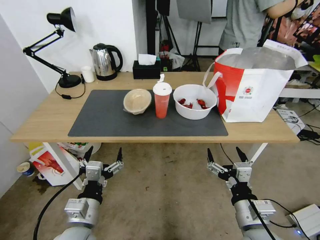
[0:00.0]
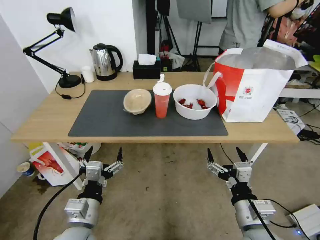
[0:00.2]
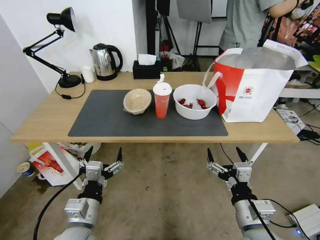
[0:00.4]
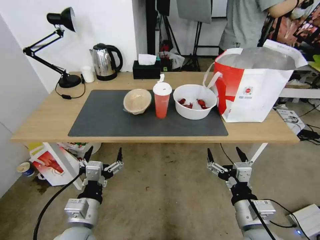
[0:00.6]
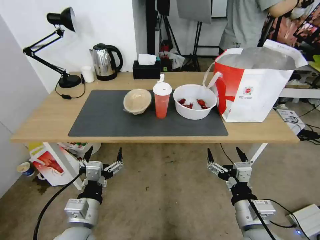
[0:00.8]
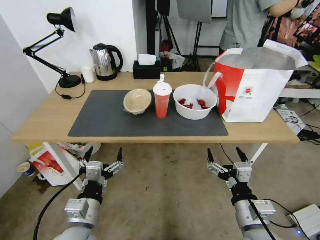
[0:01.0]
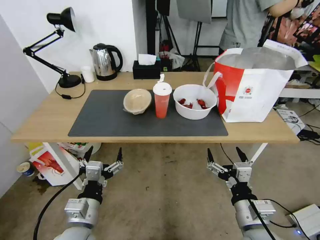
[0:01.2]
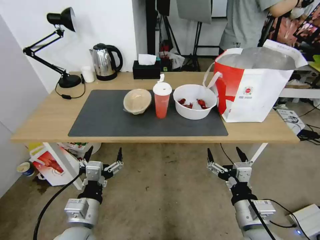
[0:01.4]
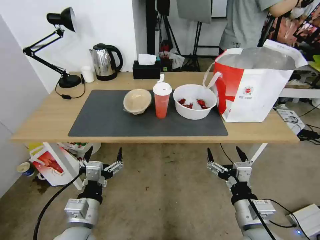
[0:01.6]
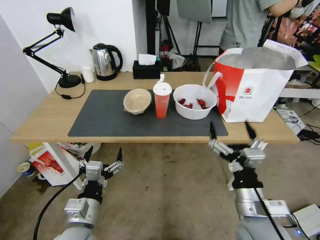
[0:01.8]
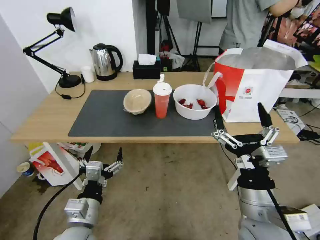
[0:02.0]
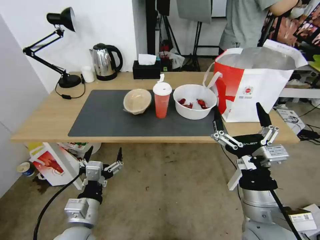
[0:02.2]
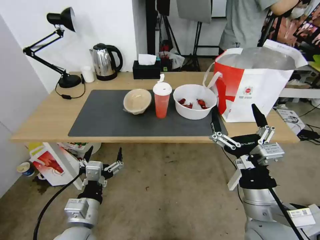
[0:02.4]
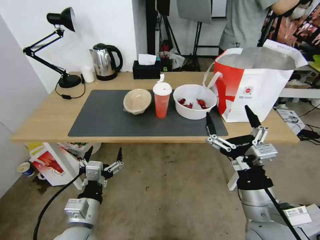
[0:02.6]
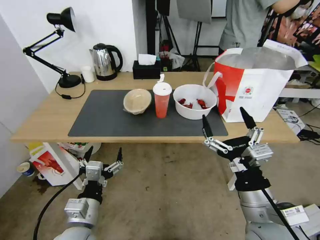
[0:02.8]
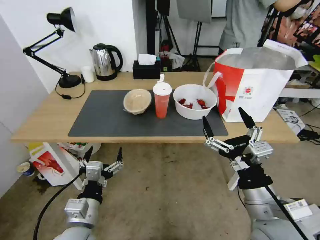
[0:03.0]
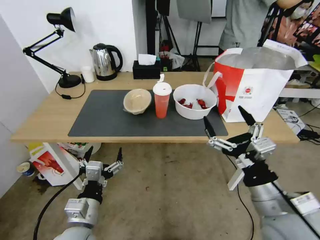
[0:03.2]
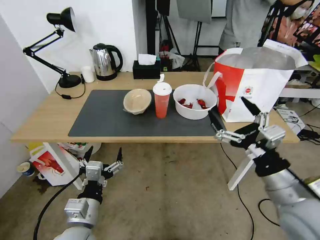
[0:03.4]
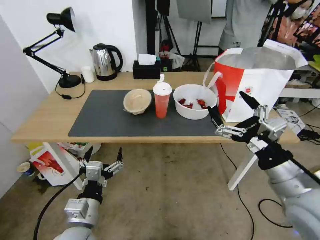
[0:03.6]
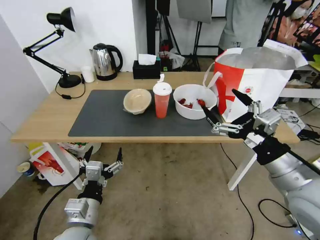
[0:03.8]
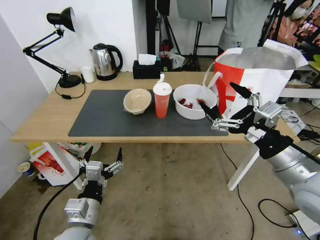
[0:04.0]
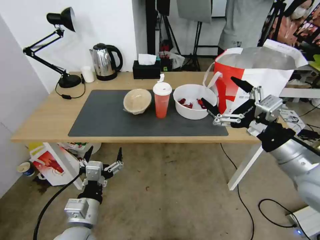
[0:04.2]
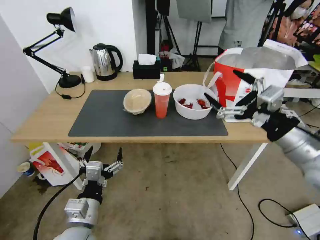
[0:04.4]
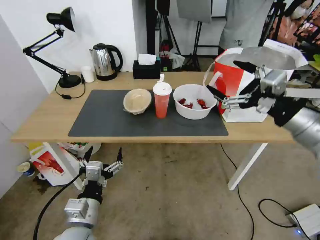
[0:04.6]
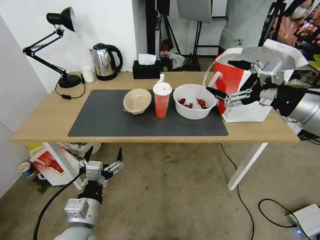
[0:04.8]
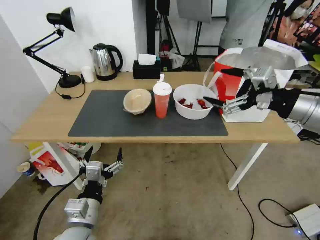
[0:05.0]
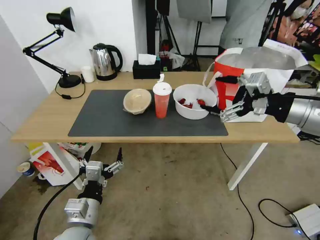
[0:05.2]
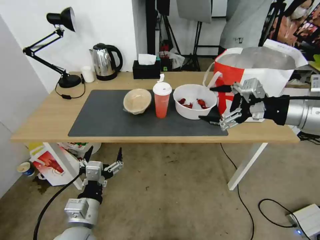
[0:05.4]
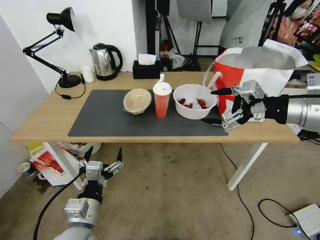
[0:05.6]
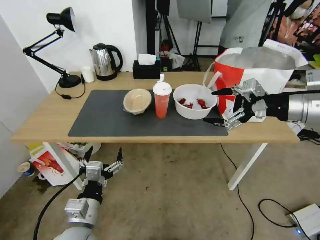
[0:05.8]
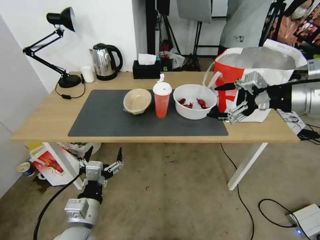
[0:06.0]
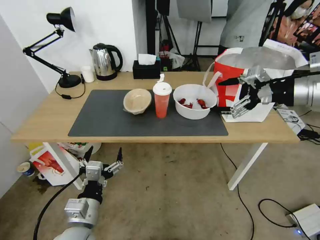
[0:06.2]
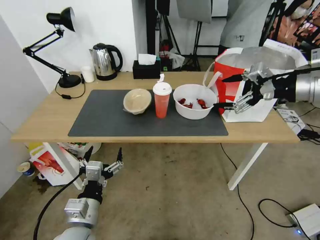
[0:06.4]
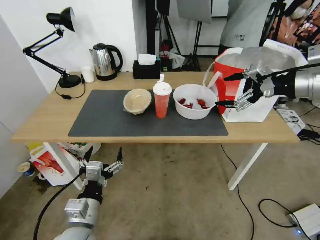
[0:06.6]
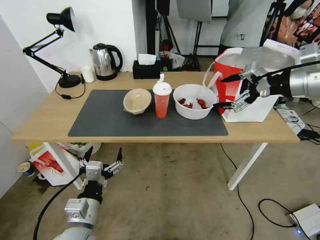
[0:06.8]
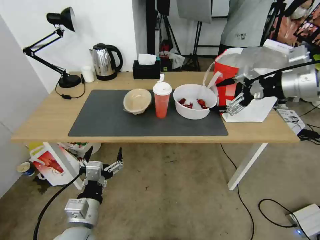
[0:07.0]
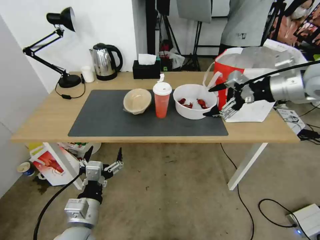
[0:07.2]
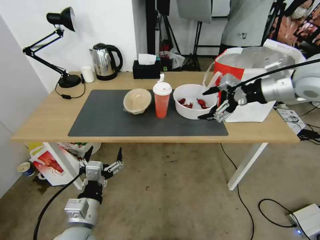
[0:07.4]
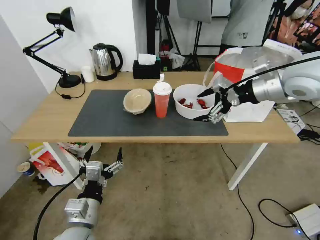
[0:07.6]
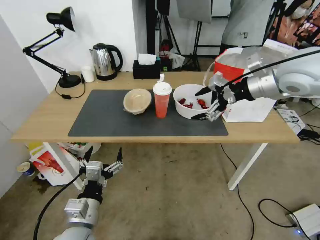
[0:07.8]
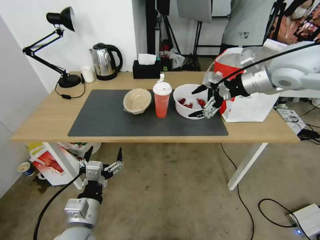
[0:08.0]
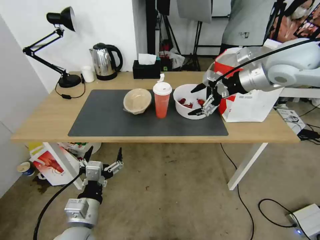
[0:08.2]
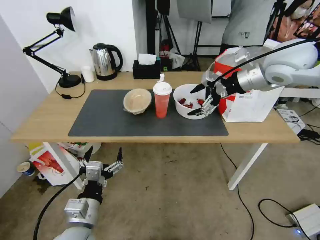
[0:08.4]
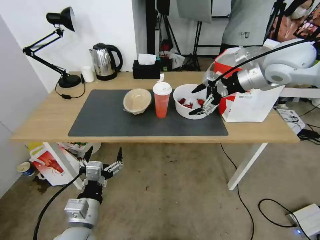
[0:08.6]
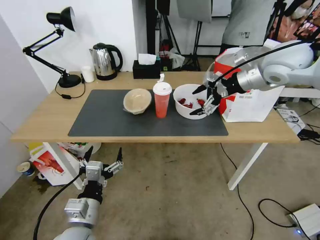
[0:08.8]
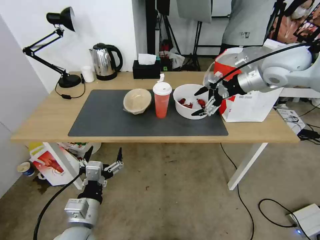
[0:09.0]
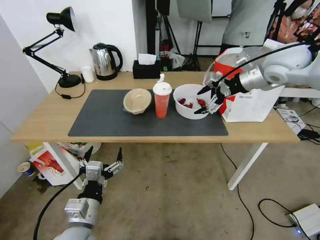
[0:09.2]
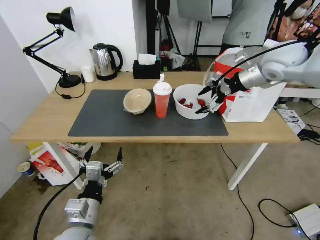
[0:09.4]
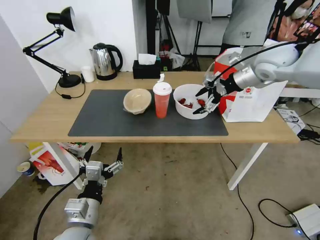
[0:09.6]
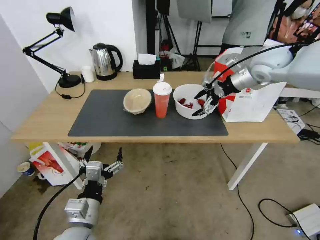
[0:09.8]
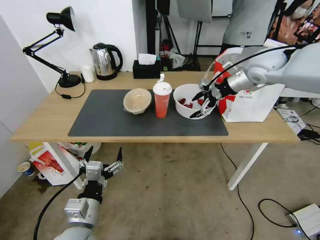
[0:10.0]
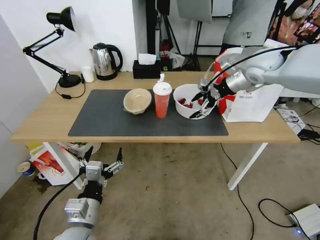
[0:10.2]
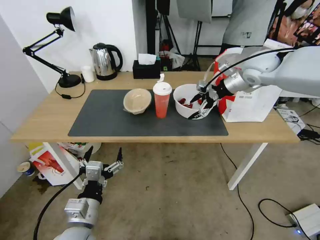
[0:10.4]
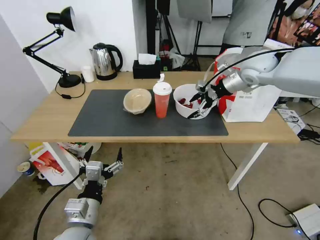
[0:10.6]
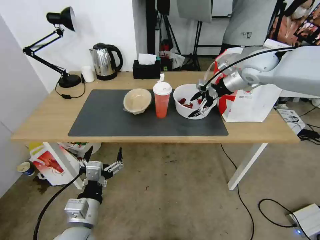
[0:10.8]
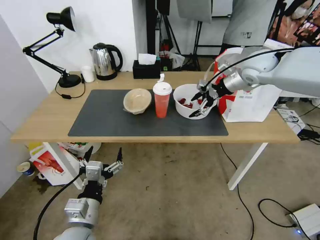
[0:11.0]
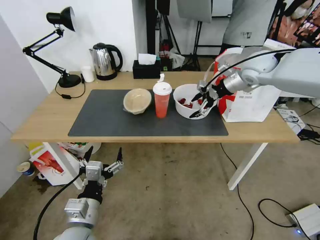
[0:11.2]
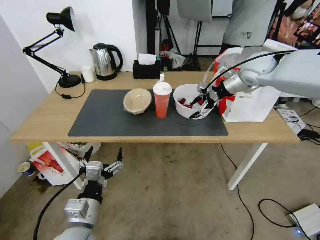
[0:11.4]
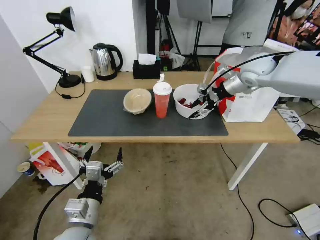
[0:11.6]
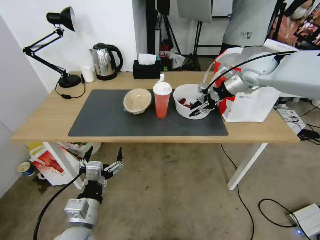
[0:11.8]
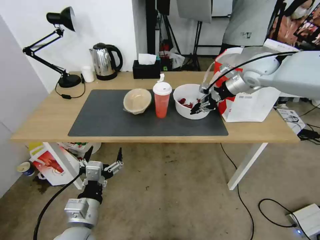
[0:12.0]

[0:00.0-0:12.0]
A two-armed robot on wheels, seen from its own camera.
Task of the whole recording: Pick up the trash from the table and place it into the takeout bag.
0:01.6 to 0:03.0: The right gripper is displaced upward by approximately 10 cm.
0:03.0 to 0:04.4: The right gripper shifts roughly 15 cm upward, to the right and forward.
0:04.4 to 0:06.0: The right gripper heads forward, upward and to the right, covering some 15 cm.
0:06.0 to 0:07.6: The right gripper goes some 5 cm forward.
0:07.6 to 0:09.0: The right gripper moves forward, approximately 5 cm.
0:09.0 to 0:10.4: The right gripper travels forward by some 5 cm.
0:10.4 to 0:12.0: The right gripper closes its fingers.

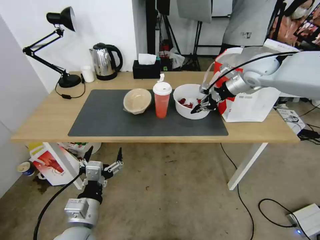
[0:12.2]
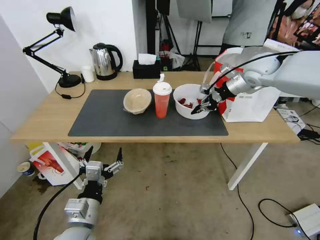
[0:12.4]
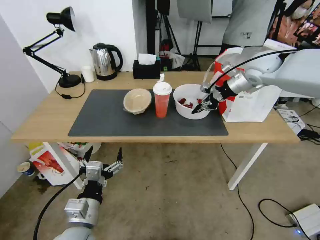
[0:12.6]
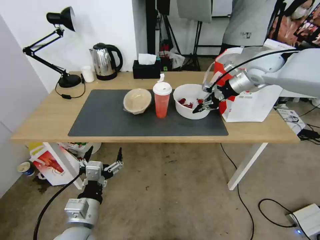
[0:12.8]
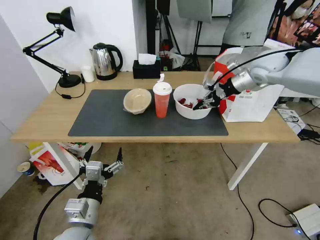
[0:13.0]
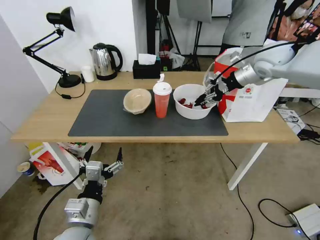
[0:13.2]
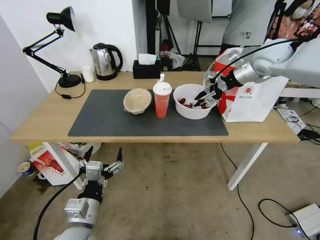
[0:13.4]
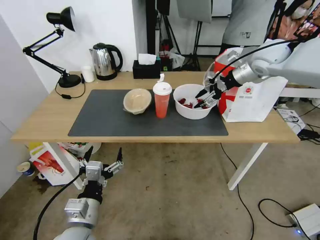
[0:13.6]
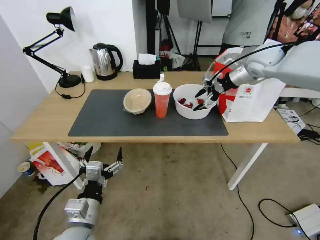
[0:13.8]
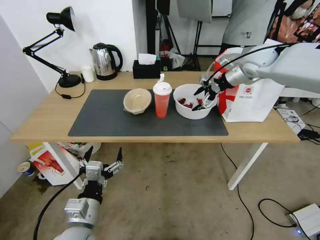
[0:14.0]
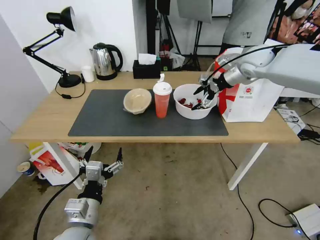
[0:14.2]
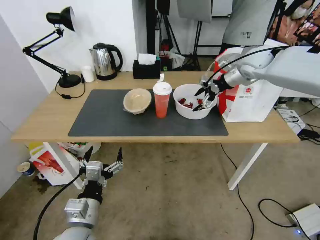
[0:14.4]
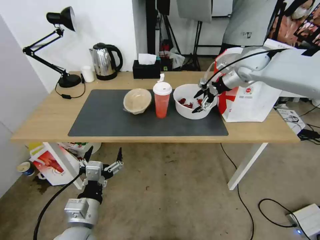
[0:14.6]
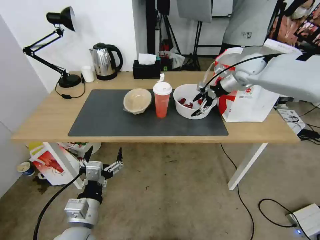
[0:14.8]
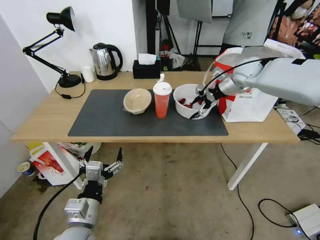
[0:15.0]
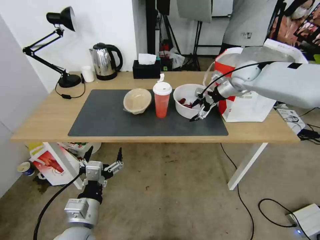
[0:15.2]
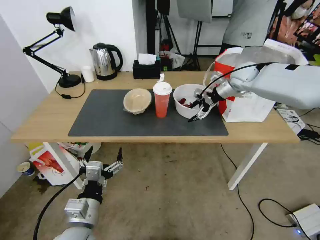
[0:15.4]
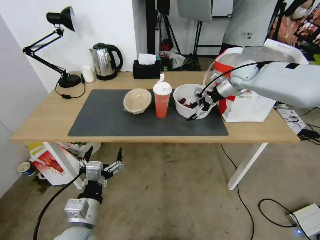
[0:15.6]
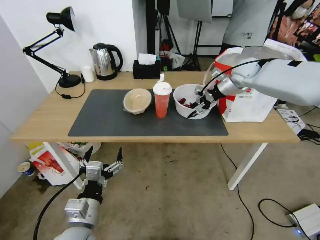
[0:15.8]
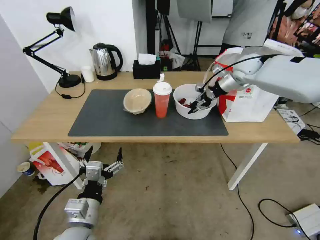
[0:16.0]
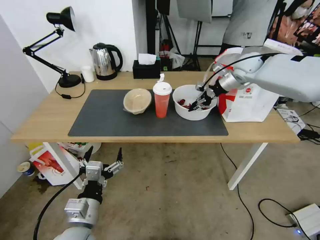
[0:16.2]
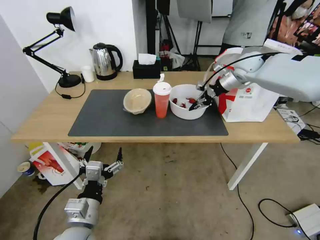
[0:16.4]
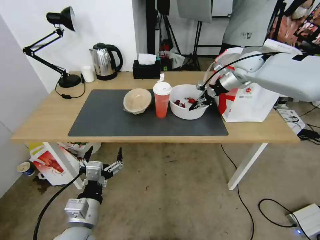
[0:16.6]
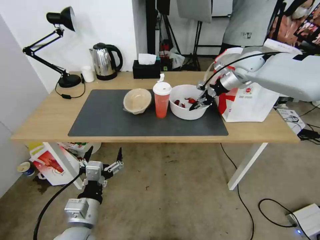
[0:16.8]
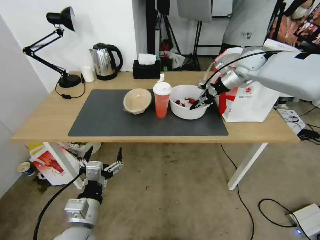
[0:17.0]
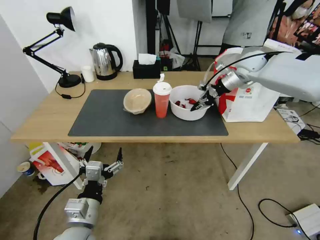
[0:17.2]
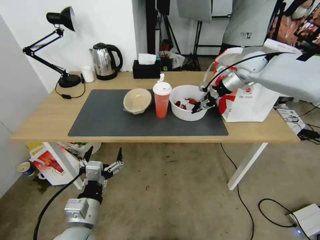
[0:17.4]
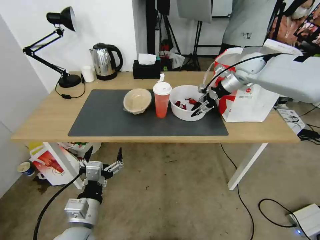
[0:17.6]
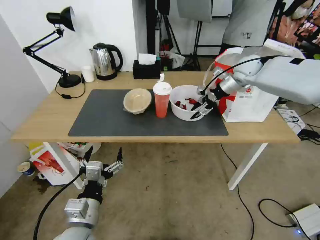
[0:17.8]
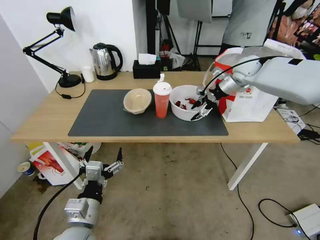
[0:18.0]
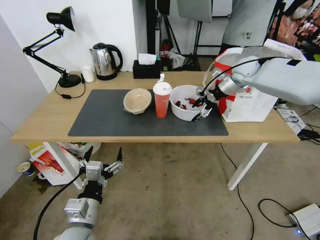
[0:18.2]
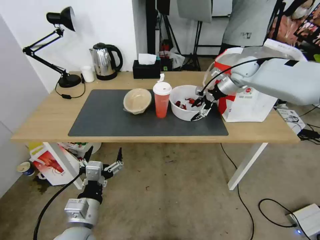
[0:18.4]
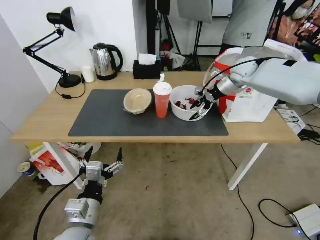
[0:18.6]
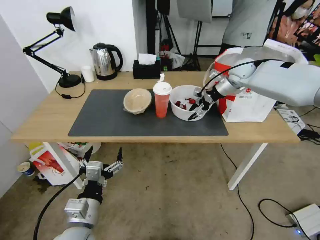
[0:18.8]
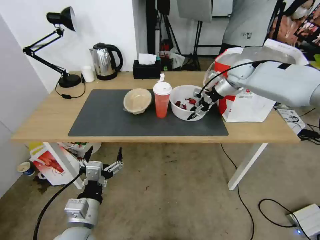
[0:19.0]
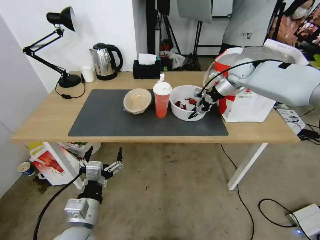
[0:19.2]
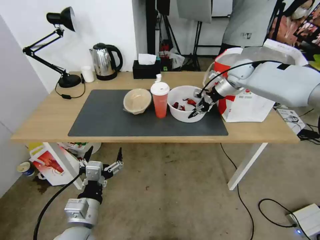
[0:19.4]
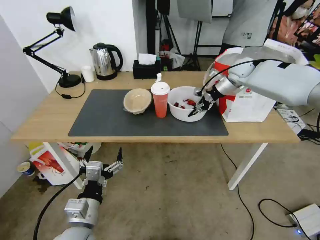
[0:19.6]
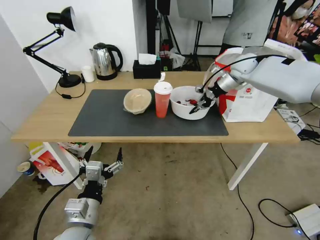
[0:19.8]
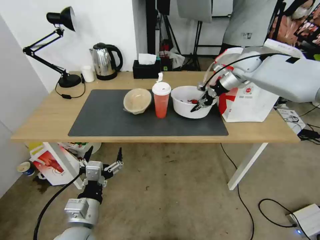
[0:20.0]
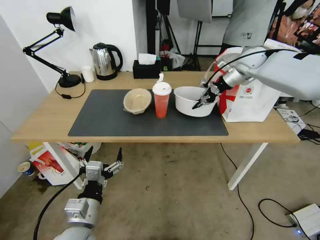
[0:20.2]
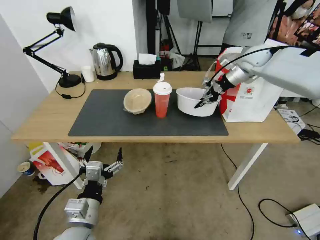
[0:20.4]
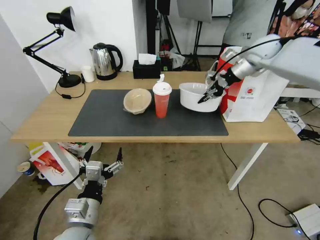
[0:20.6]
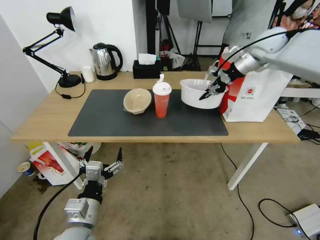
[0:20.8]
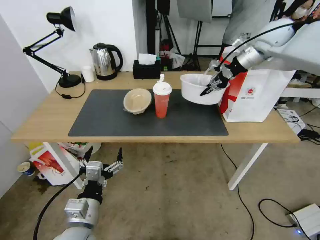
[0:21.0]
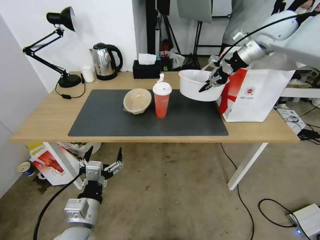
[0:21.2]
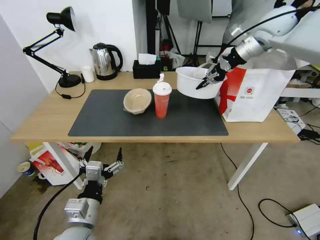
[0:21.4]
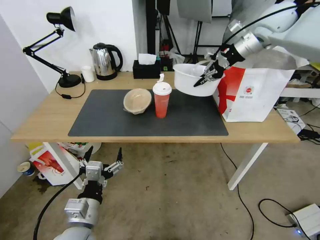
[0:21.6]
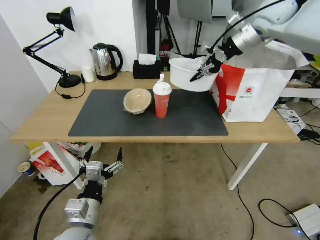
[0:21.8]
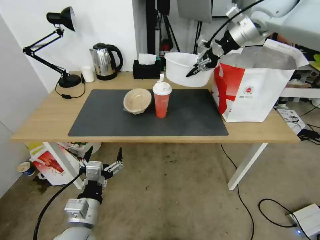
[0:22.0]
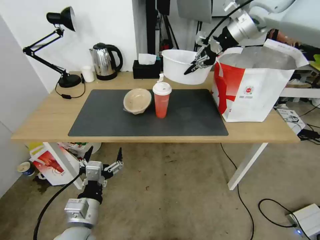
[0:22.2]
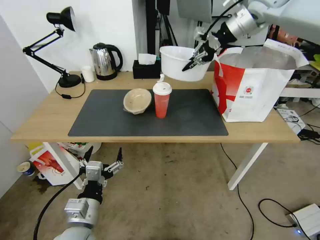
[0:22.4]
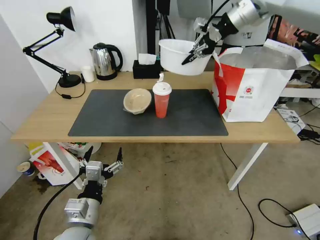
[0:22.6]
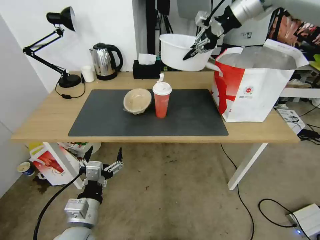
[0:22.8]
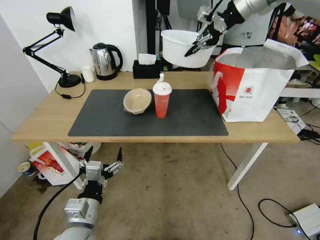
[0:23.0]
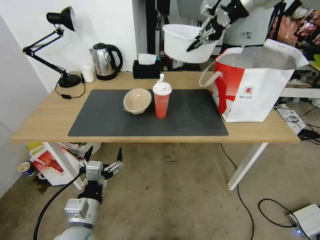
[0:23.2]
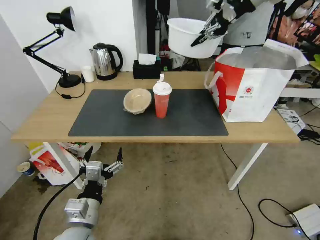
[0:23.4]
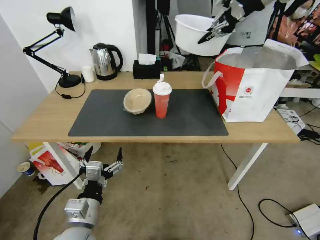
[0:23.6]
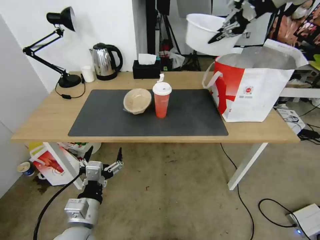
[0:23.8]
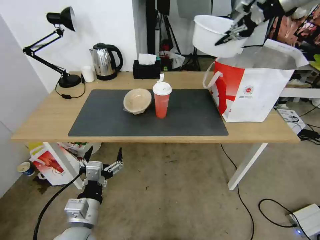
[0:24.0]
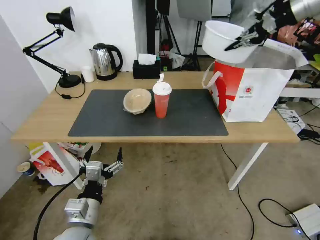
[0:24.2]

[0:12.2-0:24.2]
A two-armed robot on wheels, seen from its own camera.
Task of the whole recording: Pick up the trash from the table and place it into the takeout bag.
0:12.2 to 0:13.8: The right gripper opens its fingers.
0:13.8 to 0:15.2: The right gripper goes approximately 10 cm downward.
0:15.2 to 0:16.6: The right gripper closes up.
0:16.6 to 0:18.2: The right gripper opens up.
0:18.2 to 0:19.8: The right gripper closes up.
0:19.8 to 0:21.2: The right gripper is displaced upward by some 15 cm.
0:21.2 to 0:22.6: The right gripper travels upward and to the left by roughly 10 cm.
0:22.6 to 0:24.2: The right gripper is displaced to the right by roughly 15 cm.
